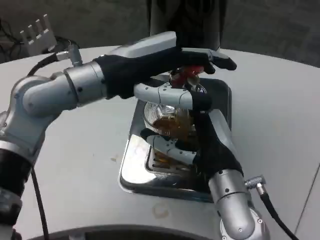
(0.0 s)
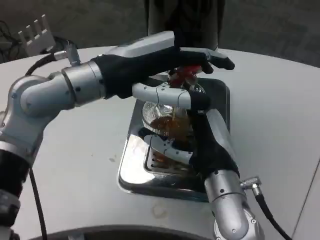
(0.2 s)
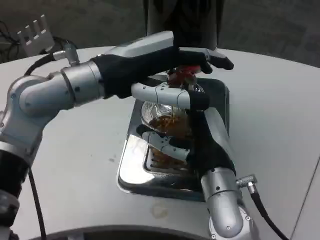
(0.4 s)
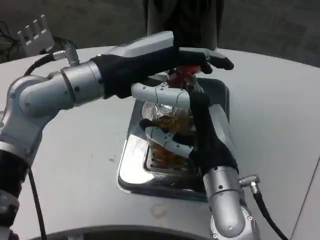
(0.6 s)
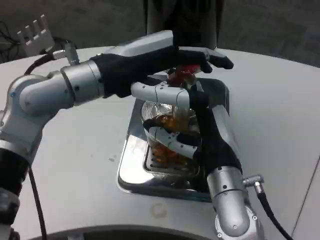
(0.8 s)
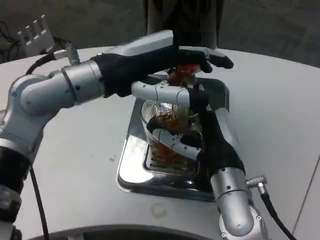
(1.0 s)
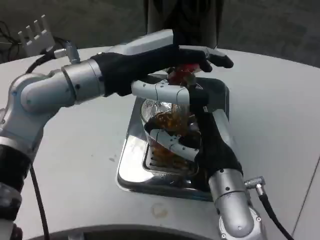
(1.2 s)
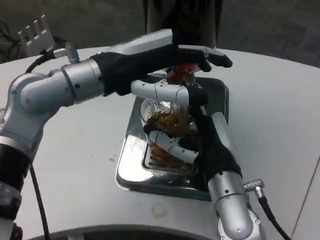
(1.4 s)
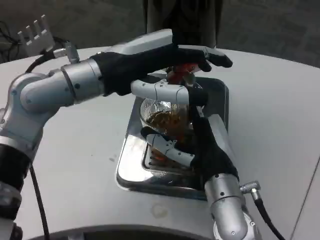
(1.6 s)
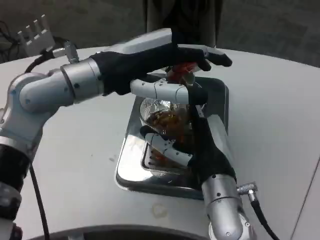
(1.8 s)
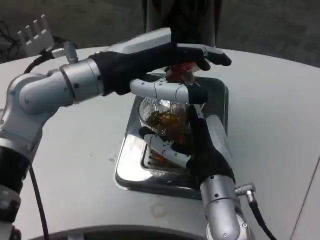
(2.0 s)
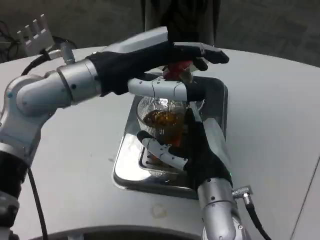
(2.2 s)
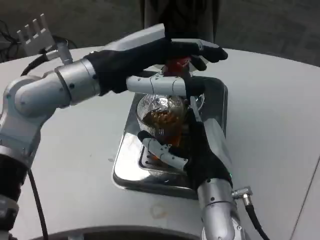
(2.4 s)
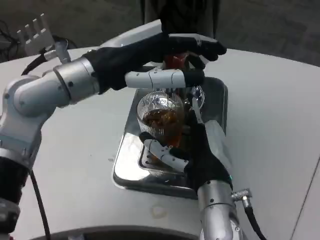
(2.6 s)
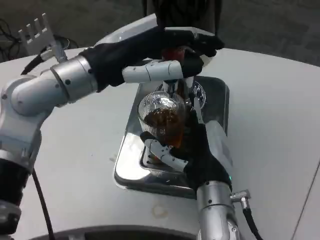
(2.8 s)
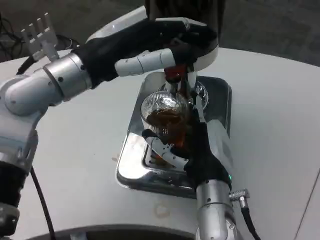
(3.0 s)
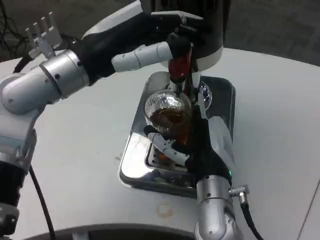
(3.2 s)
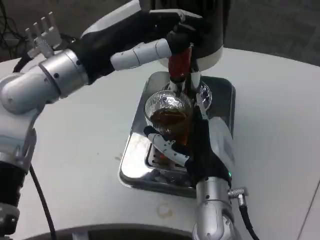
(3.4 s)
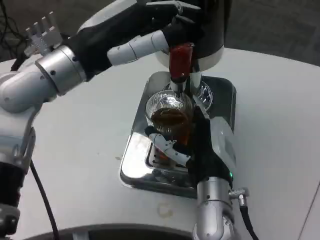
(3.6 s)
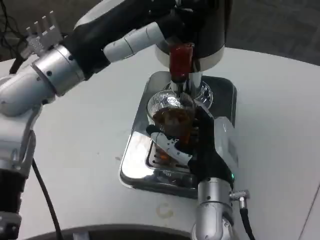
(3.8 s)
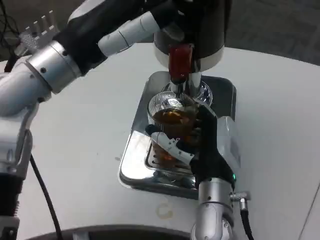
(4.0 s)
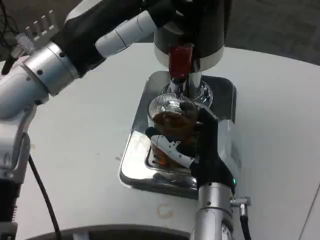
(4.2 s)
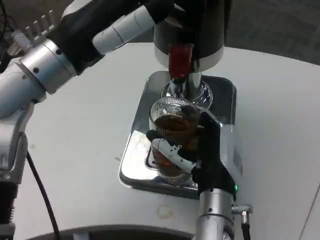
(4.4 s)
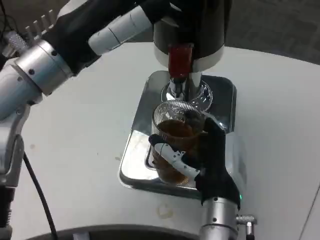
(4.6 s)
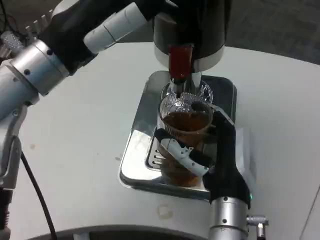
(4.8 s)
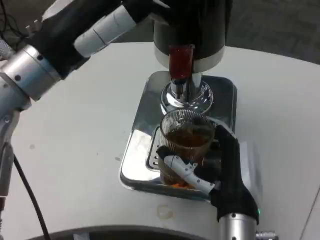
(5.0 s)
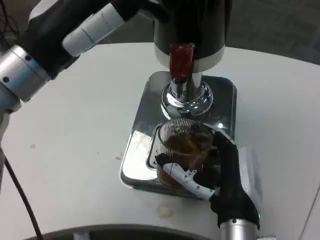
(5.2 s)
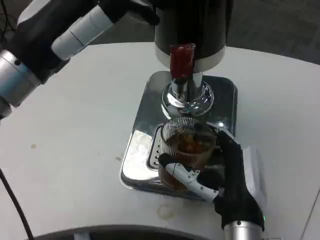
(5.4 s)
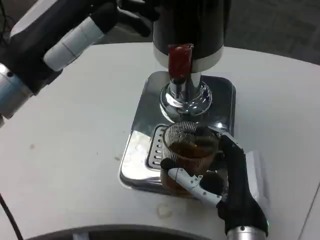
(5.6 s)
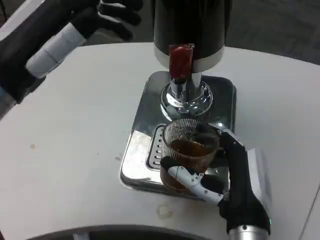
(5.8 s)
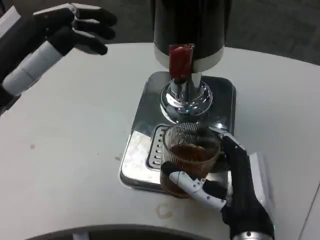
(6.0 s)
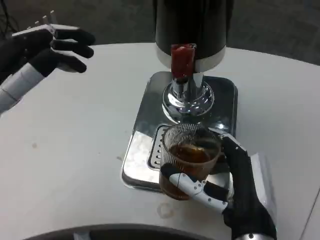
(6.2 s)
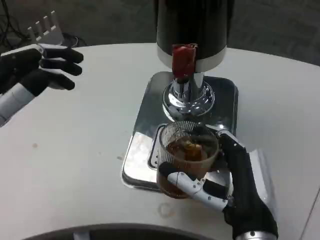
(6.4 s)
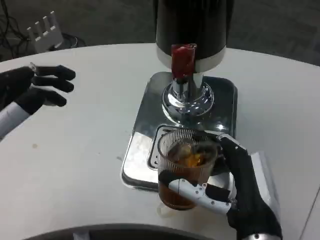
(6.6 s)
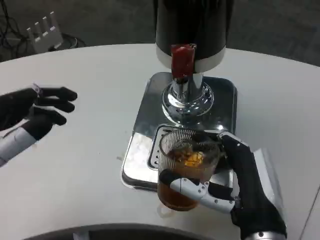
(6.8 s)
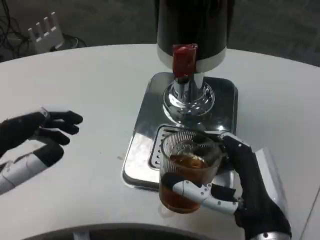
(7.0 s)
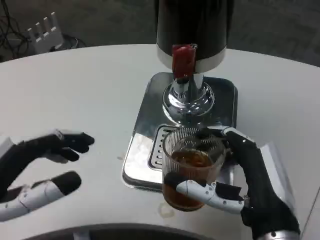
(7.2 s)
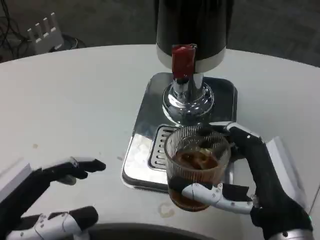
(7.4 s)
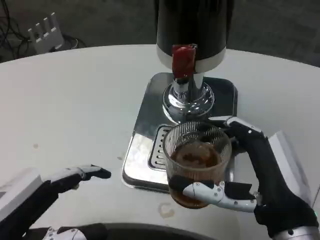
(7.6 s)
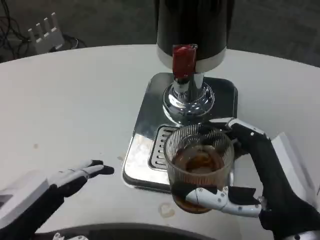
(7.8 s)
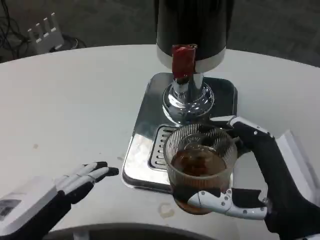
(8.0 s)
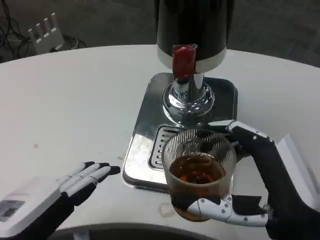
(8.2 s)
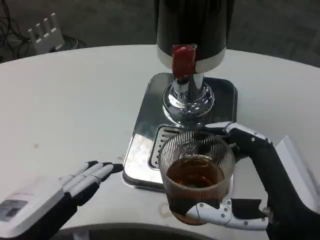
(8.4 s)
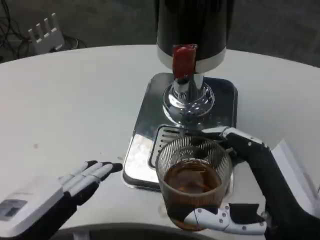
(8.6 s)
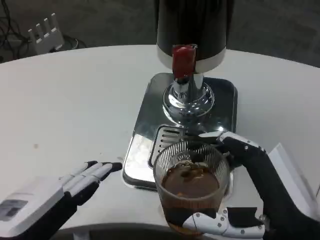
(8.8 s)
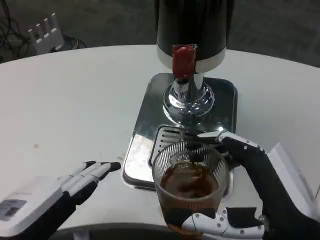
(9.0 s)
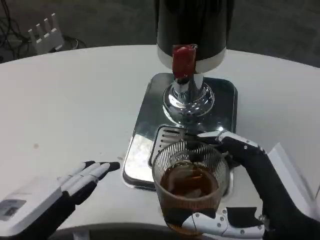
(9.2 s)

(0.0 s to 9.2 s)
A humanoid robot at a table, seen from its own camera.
Task of the whole recording: Grasp the cup under the faucet to collect the drink, then remove the cup.
0.0 s - 1.6 s: The hands make only small movements.
4.6 s - 6.2 s: The right hand moves backward, roughly 5 cm; the left hand moves to the left, backward and downward, approximately 15 cm.
6.2 s - 7.6 s: The right hand moves to the right, approximately 5 cm, while the left hand moves downward and backward, approximately 10 cm.
7.6 s - 9.2 s: The hands stay close to where they were, moving slightly.

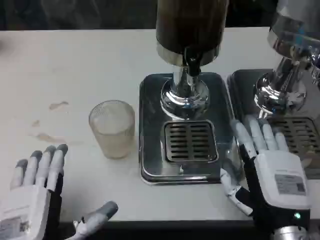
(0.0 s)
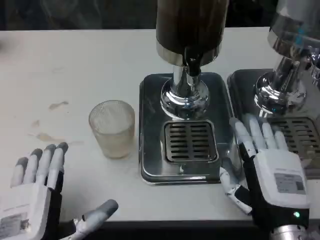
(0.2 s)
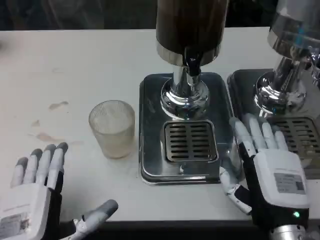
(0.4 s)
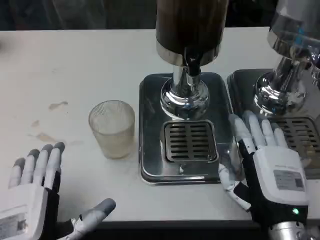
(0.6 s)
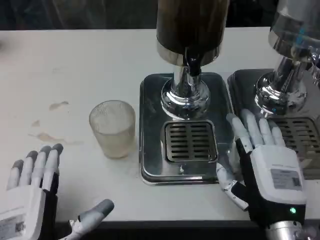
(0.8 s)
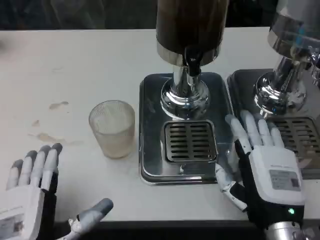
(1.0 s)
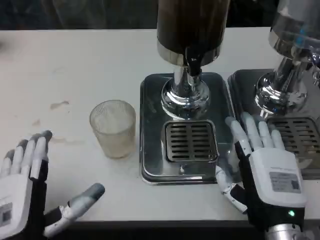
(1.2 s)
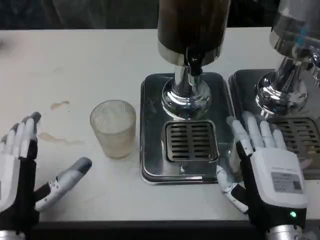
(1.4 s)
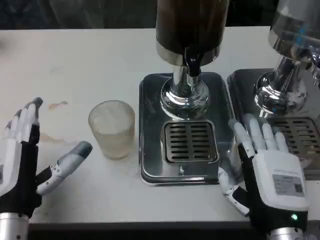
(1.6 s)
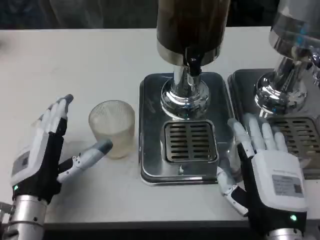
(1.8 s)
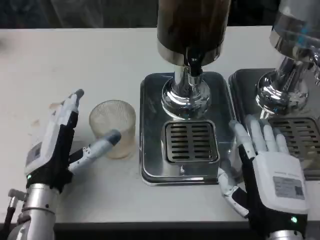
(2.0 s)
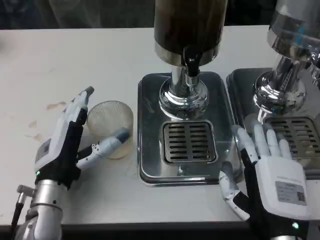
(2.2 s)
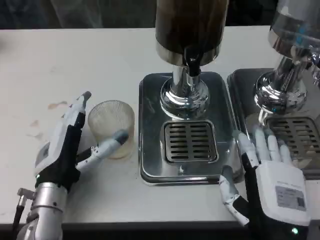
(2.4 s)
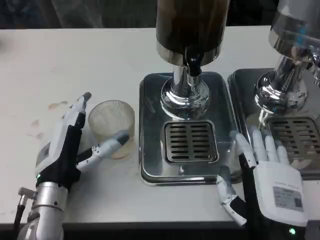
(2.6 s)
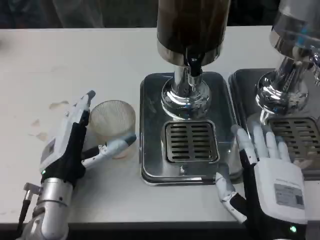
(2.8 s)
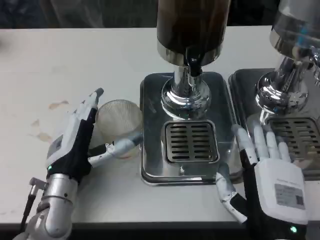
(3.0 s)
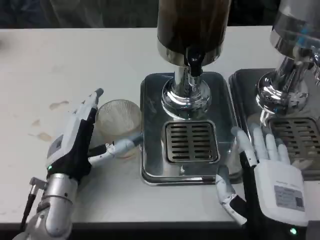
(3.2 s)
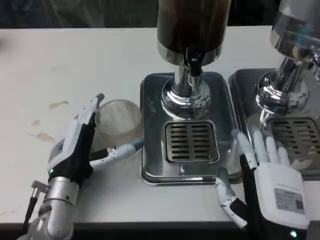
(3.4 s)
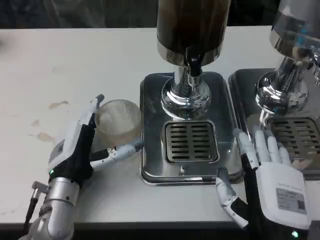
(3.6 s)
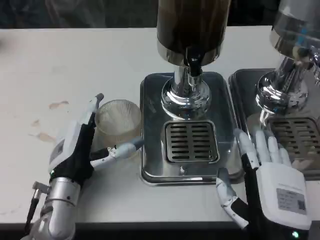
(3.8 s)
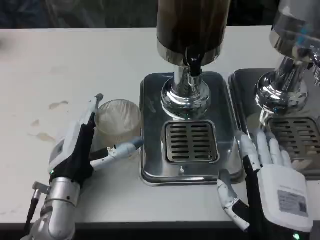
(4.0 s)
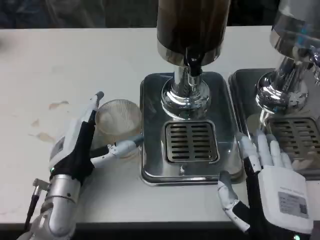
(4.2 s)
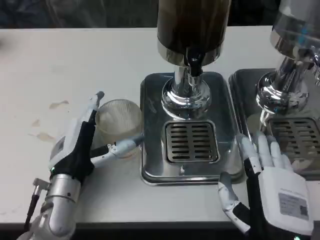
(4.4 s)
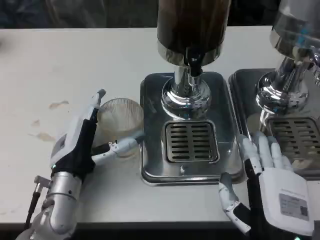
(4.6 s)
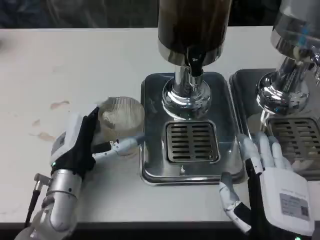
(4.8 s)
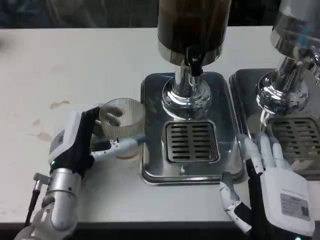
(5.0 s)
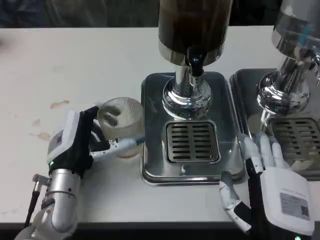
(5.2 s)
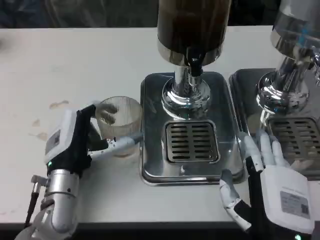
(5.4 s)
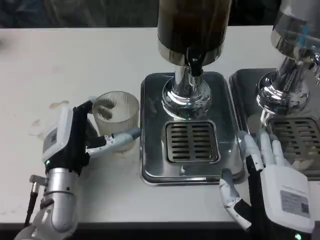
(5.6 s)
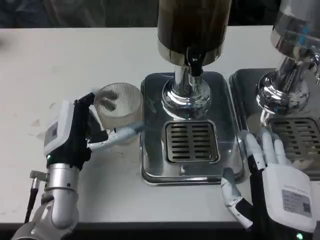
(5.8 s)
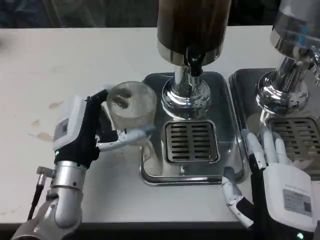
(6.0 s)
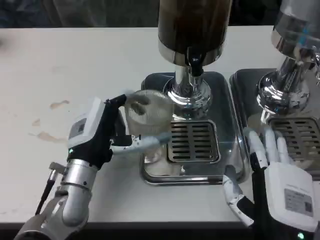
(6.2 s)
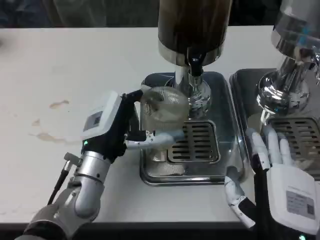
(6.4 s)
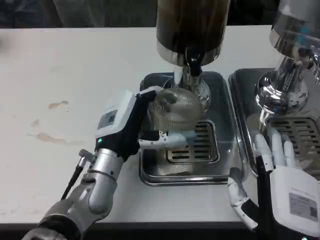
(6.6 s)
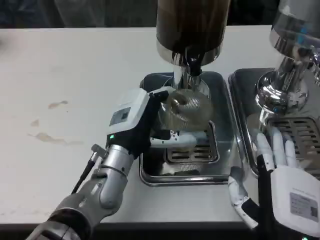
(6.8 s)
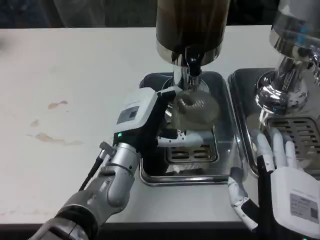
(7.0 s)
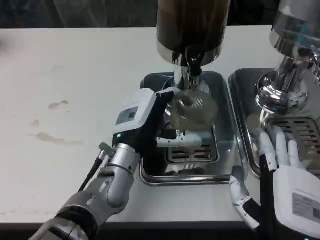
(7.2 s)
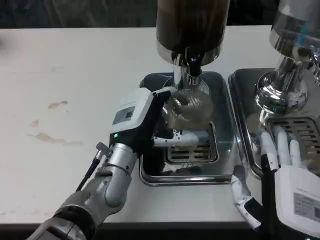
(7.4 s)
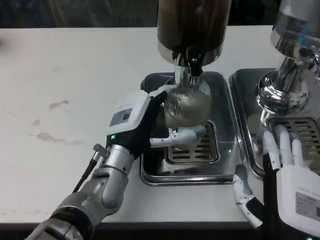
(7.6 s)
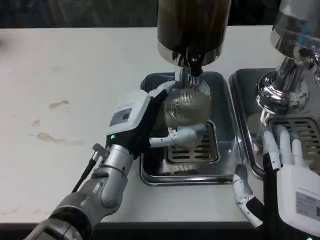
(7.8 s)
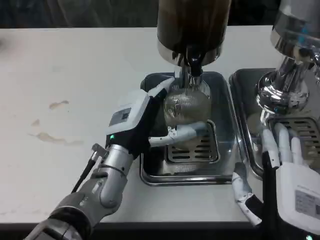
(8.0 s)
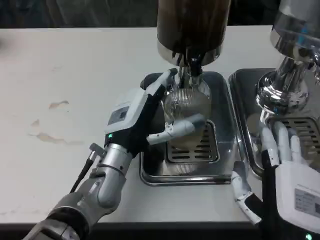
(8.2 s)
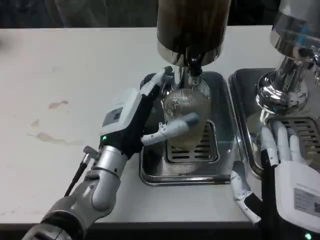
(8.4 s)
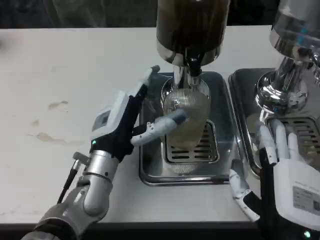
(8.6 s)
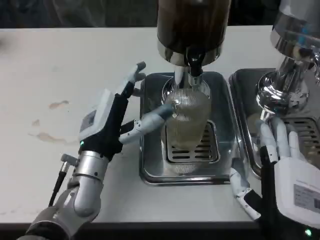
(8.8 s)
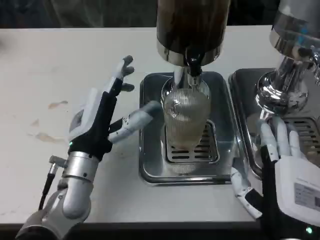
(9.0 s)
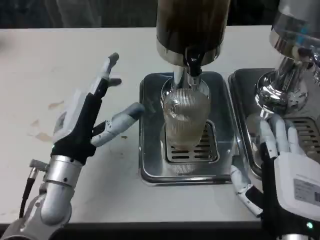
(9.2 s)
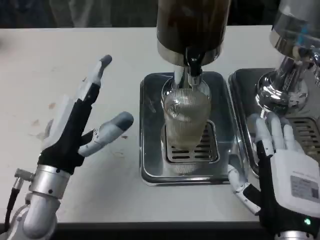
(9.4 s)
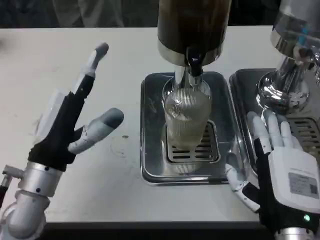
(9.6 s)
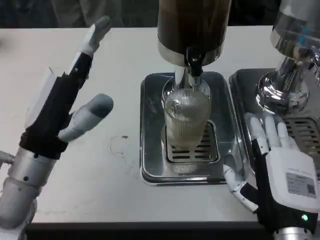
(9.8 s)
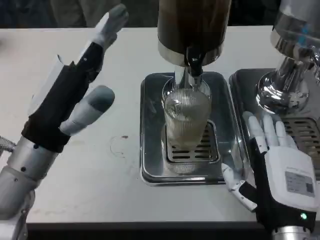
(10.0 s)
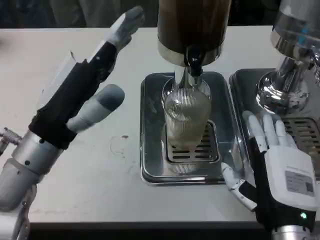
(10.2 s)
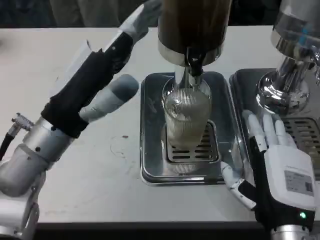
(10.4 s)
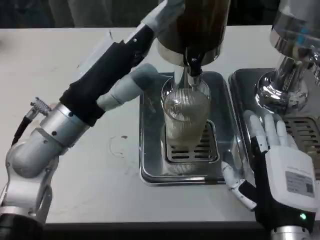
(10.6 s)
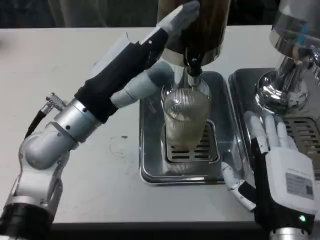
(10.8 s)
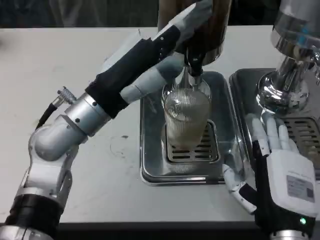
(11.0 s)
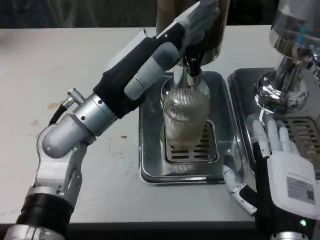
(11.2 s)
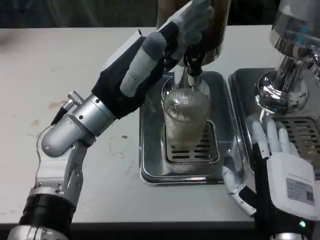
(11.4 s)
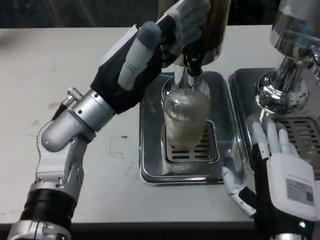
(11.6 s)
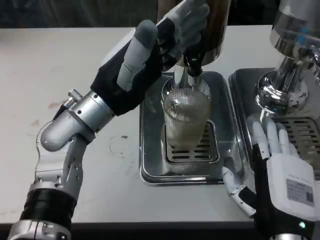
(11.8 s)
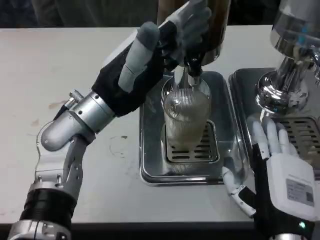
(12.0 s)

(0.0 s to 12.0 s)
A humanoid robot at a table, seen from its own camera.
Task of the whole recording: Grasp the cup under the faucet to collect the drink, then remove the cup.
0.0 s - 1.6 s: The left hand is displaced forward by roughly 10 cm.
1.6 s - 3.0 s: The left hand is displaced forward by some 5 cm.
3.0 s - 4.4 s: Both hands stay put.
4.4 s - 6.0 s: There are only small adjustments of the hands.
6.0 s - 7.6 s: The left hand travels to the right by roughly 5 cm.
7.6 s - 9.0 s: The left hand heads to the left, covering some 5 cm.
9.0 s - 10.4 s: The left hand moves upward, about 10 cm.
10.4 s - 12.0 s: The left hand is displaced forward by approximately 5 cm.

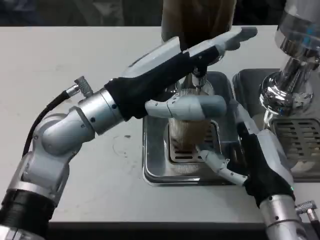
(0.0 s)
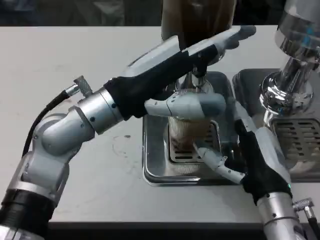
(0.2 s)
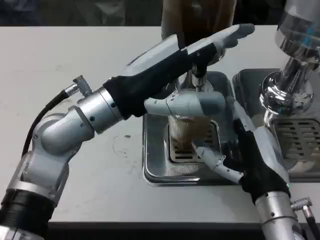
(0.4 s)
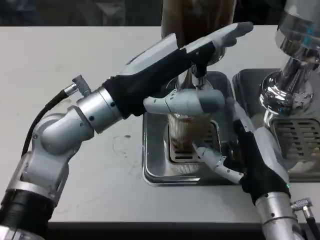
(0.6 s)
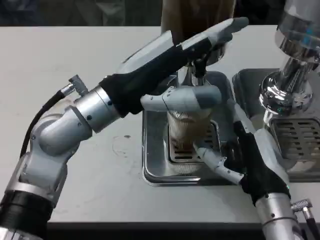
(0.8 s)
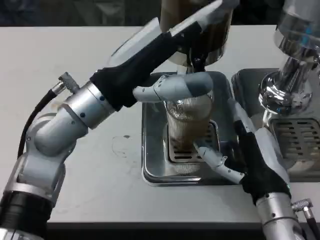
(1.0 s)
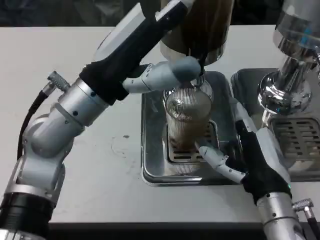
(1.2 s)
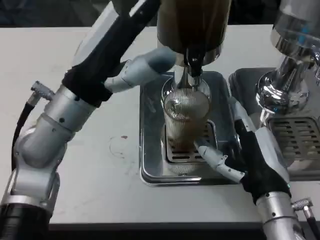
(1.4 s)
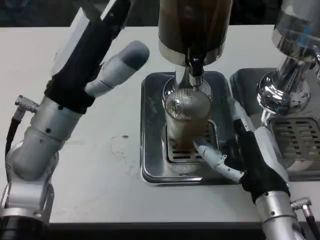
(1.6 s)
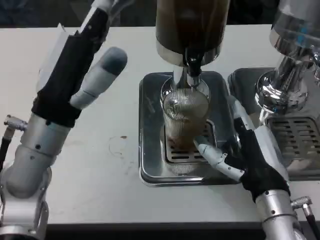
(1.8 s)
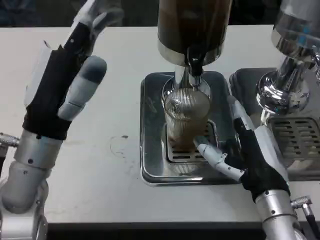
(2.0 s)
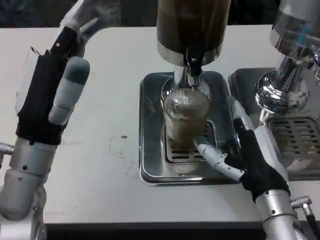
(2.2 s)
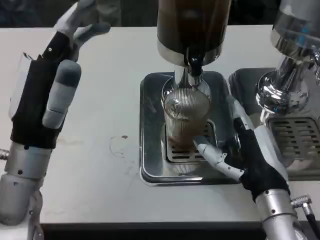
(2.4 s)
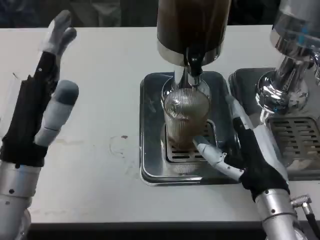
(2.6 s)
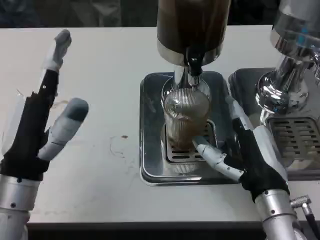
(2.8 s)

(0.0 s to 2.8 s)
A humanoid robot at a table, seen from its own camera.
Task of the whole recording: Grasp the cup under the faucet to collect the drink, then remove the cup.
1.4 s - 2.8 s: The left hand goes approximately 15 cm downward, backward and to the left.
